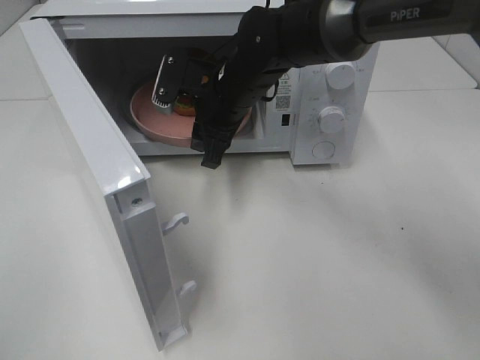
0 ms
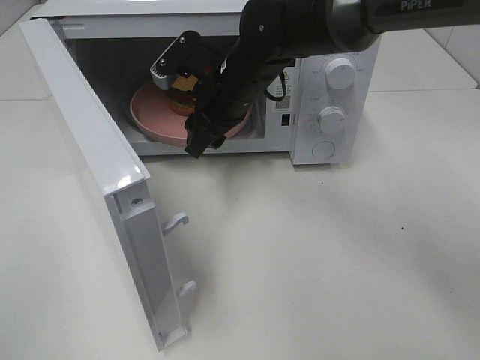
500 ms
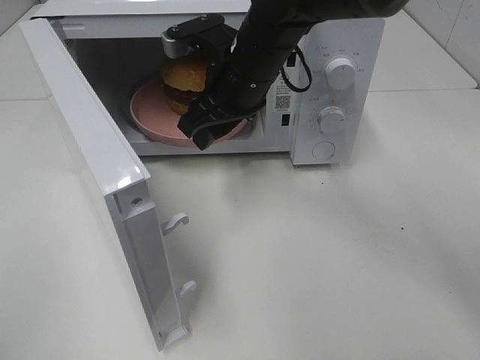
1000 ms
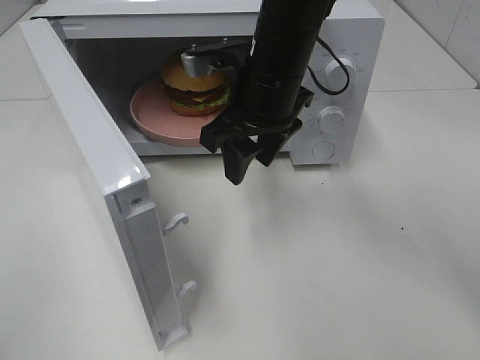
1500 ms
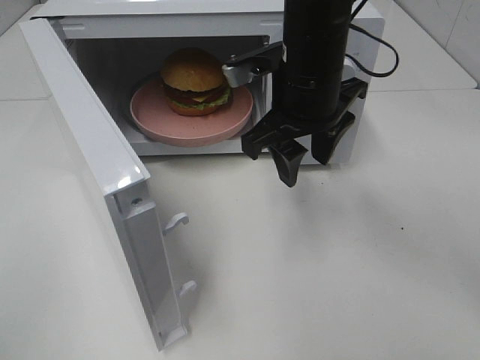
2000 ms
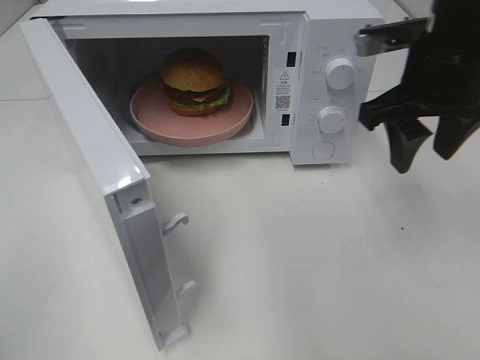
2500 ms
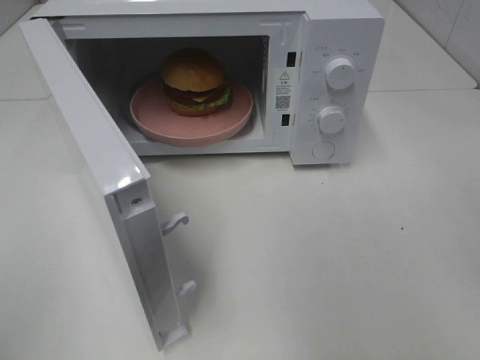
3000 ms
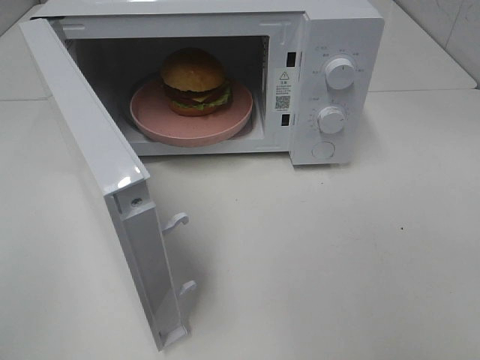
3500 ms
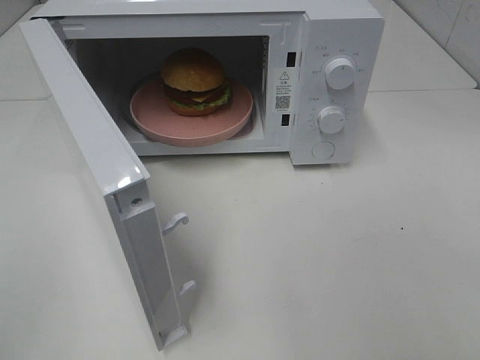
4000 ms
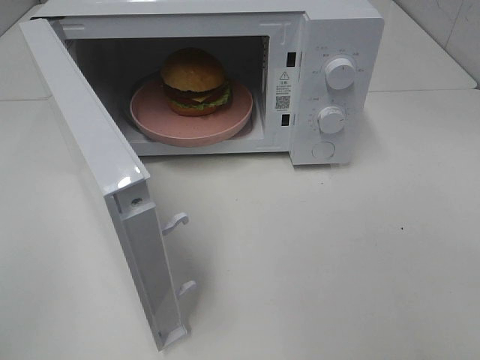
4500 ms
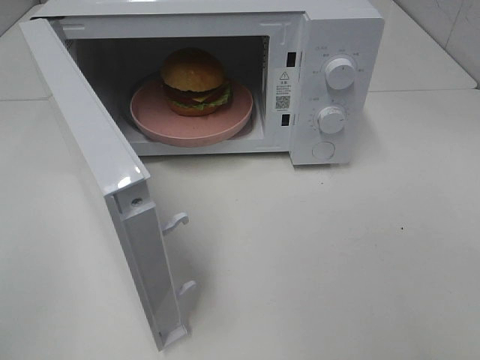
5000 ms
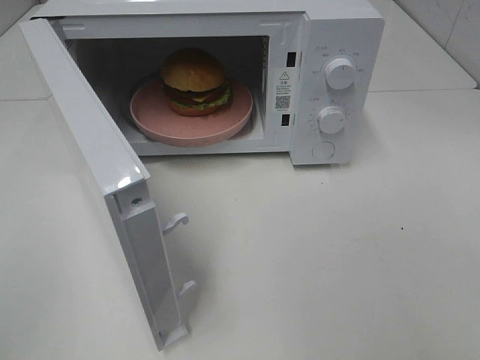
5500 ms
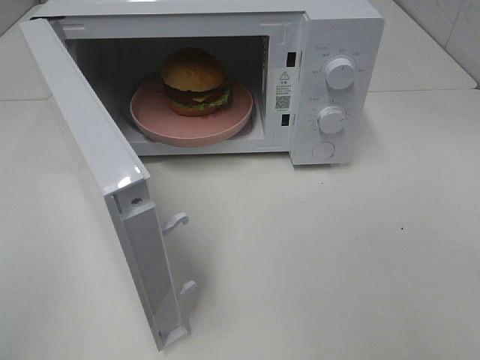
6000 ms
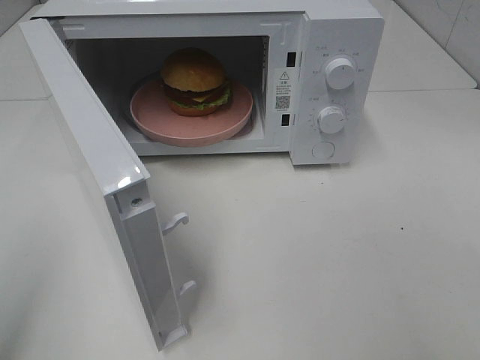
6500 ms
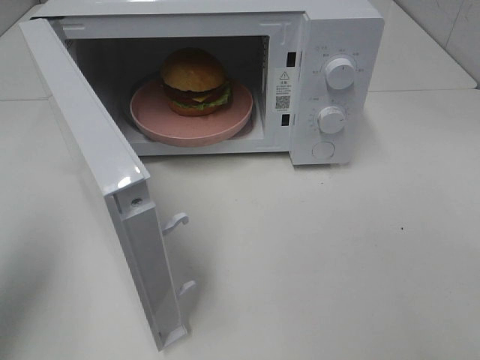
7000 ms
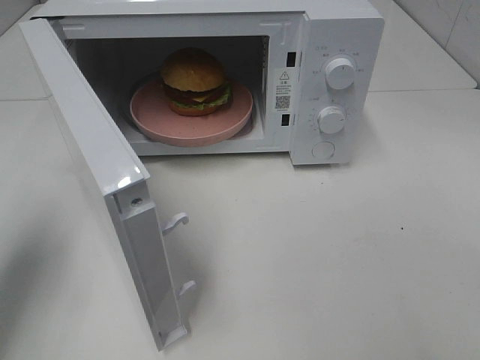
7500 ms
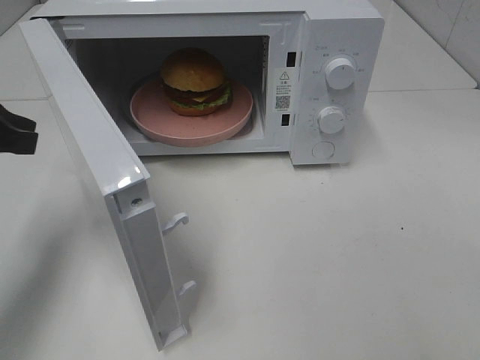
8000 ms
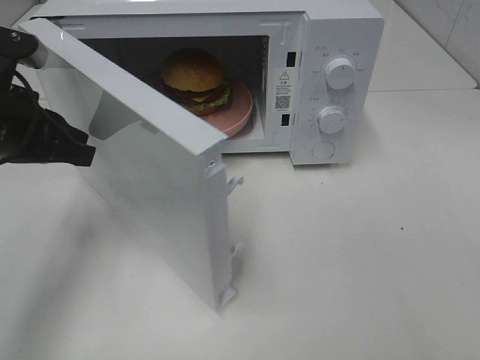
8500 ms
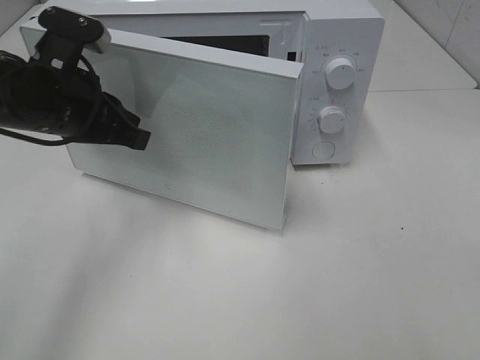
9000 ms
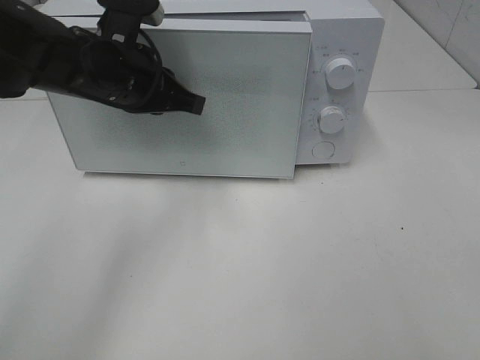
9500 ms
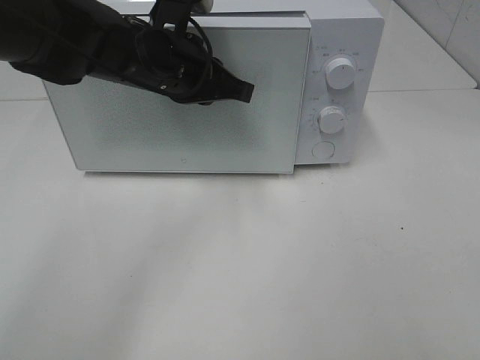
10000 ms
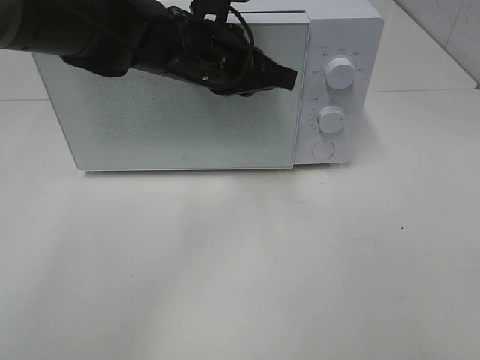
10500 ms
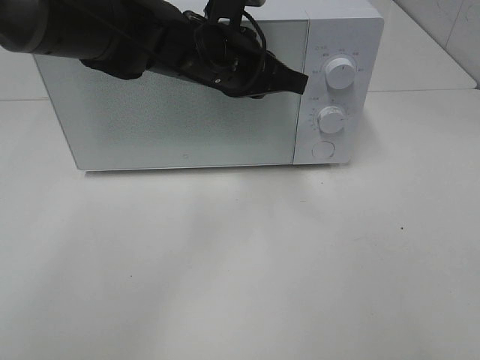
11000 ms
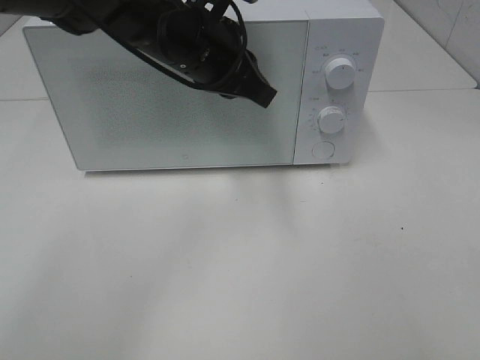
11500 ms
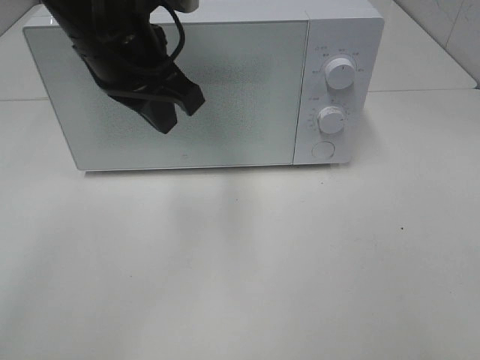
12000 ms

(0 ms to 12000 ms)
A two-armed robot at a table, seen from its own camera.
Task of the whole recording: Heat the burger.
Step, 0 ms - 11000 ms: Left hand: close the microwave door.
0 ms - 2000 ms: The right gripper is displaced to the right, backward and upward by some 10 cm.
2000 ms - 4000 ms: The right gripper heads backward and to the right, covering approximately 40 cm.
6000 ms - 8000 ms: The left gripper shifts roughly 25 cm forward.
8000 ms - 10000 ms: The left gripper shifts roughly 20 cm to the right and forward.
10000 ms - 12000 ms: The left gripper is displaced upward by approximately 5 cm, and goes to the right and returns, about 5 cm each way.

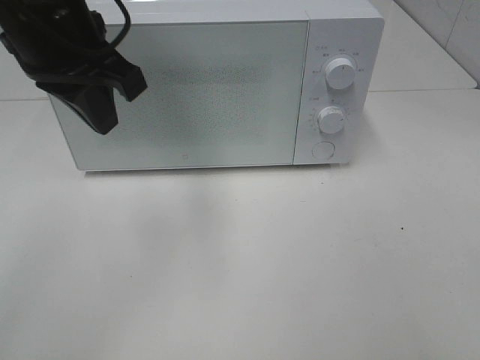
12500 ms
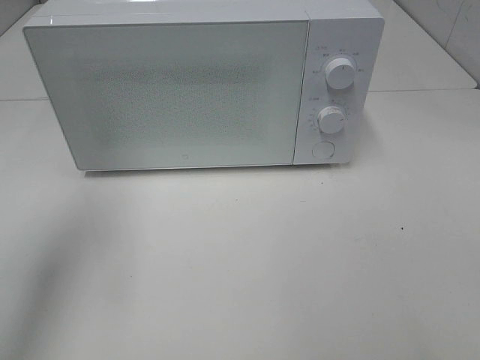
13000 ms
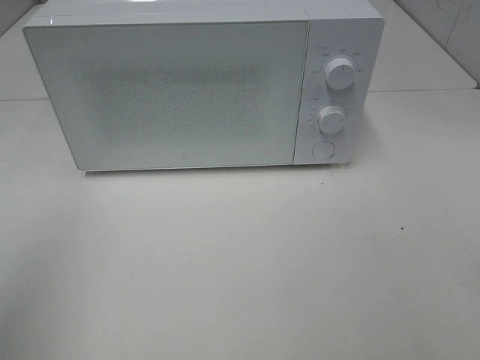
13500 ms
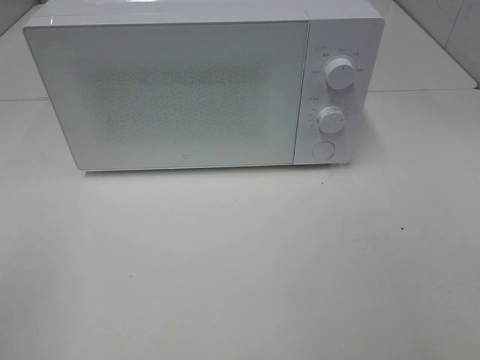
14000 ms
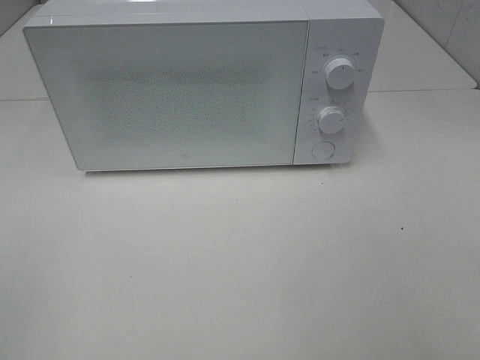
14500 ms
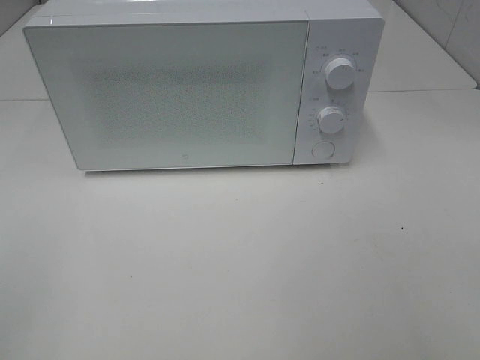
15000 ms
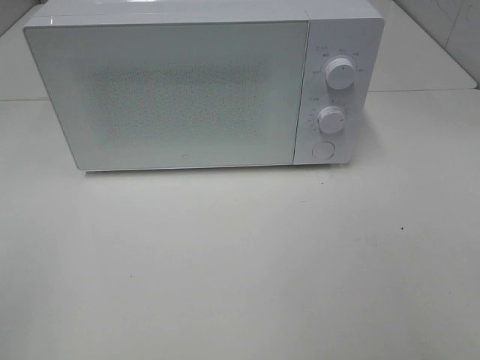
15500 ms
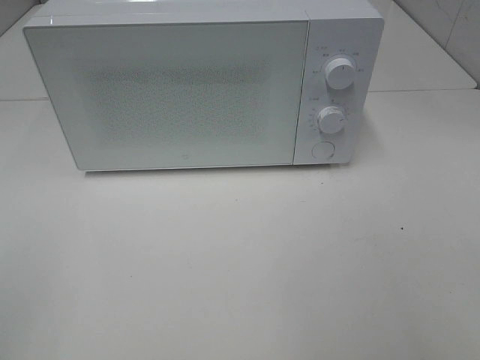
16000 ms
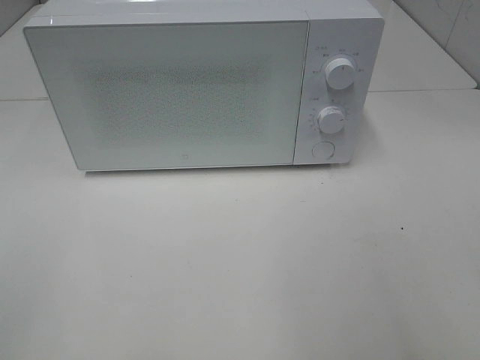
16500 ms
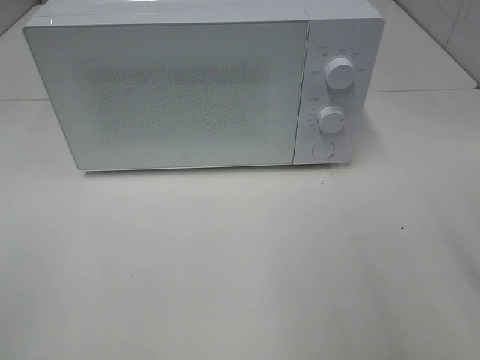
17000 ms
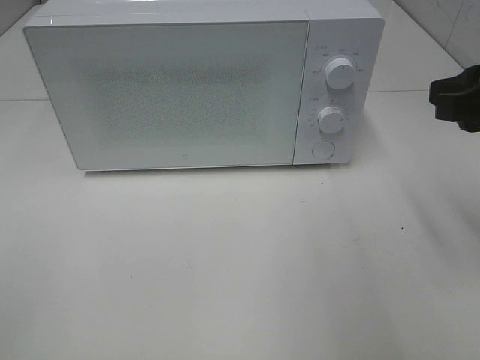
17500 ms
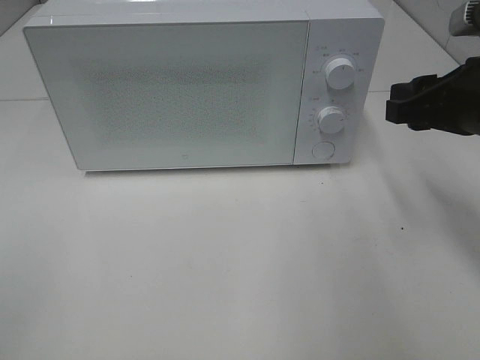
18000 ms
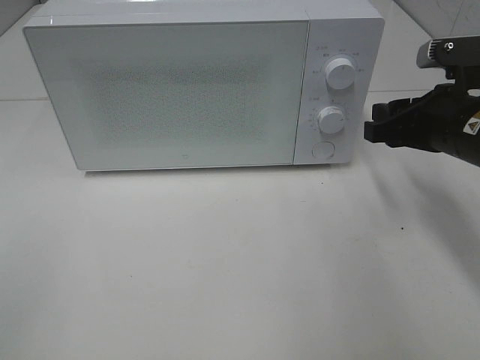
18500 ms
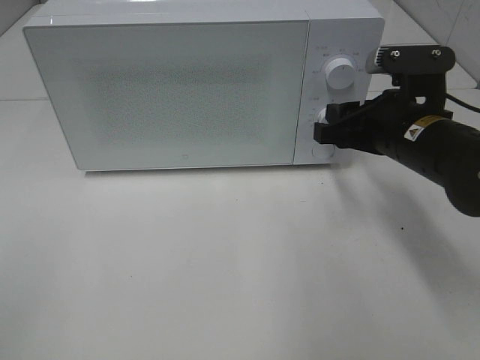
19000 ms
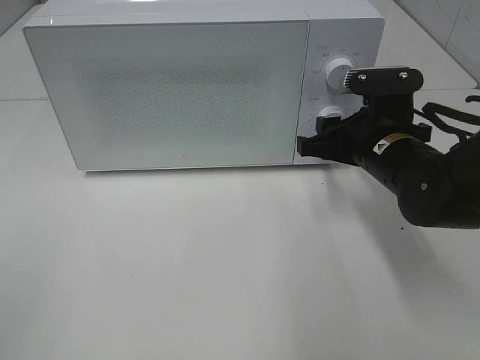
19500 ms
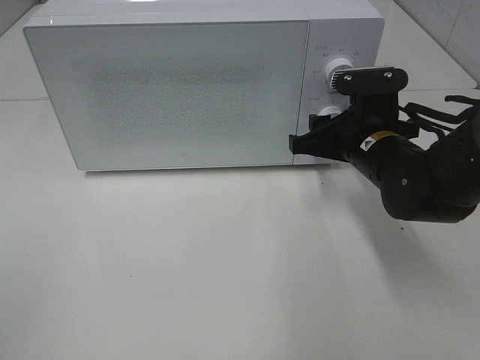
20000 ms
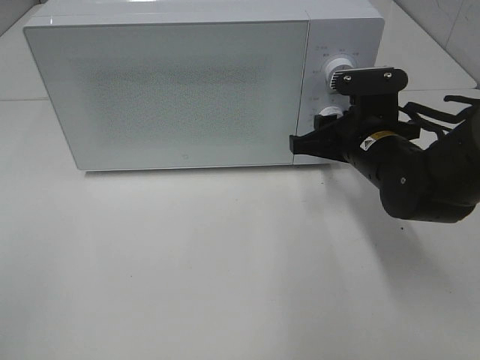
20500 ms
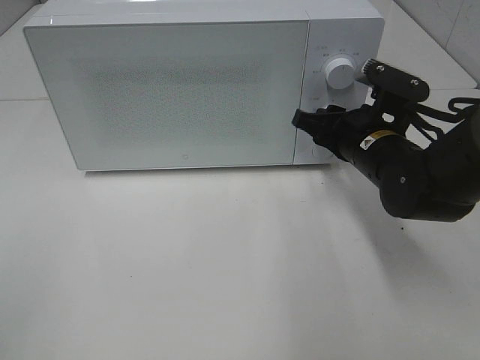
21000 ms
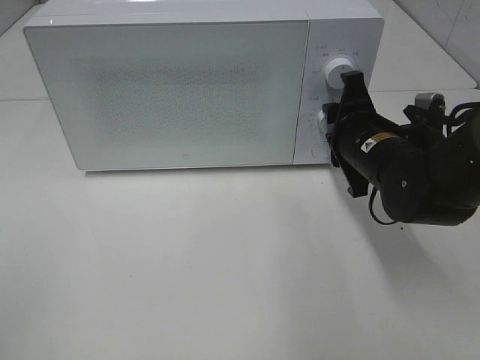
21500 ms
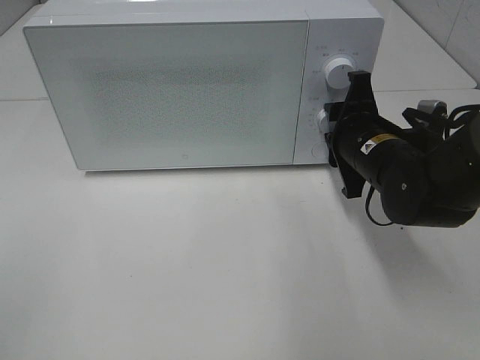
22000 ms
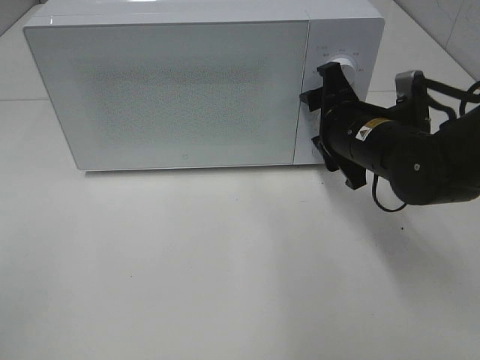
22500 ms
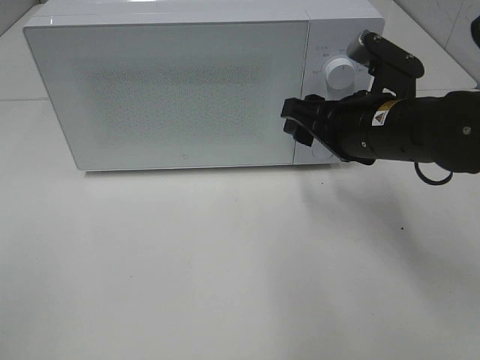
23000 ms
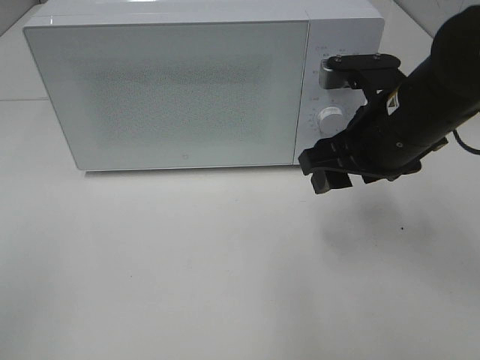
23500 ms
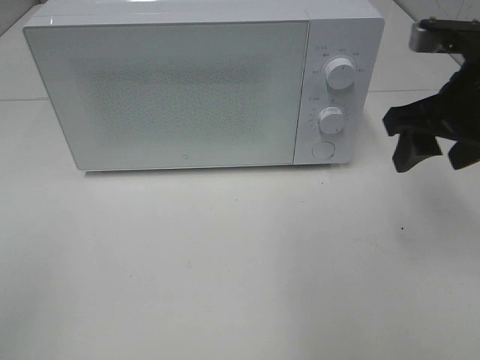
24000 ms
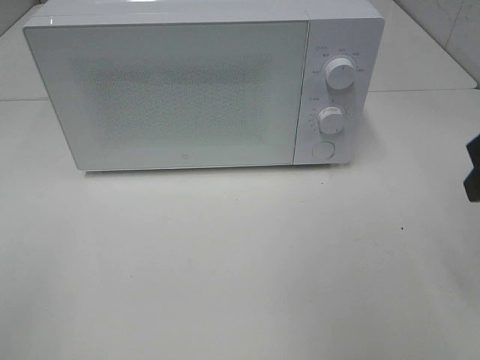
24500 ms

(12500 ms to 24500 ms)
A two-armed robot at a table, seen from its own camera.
Task of the whole recording: Heat the burger.
Step, 12500 ms - 22000 ms: Right hand: twist timer button.
12500 ms - 14500 ms: The left gripper travels backward and to the left by some 35 cm.
16500 ms - 18500 ms: The right gripper shifts approximately 25 cm forward and downward.
18500 ms - 20500 ms: The right gripper shifts roughly 5 cm to the left.
22500 ms - 24500 ms: The right gripper travels upward, backward and to the right by some 20 cm.

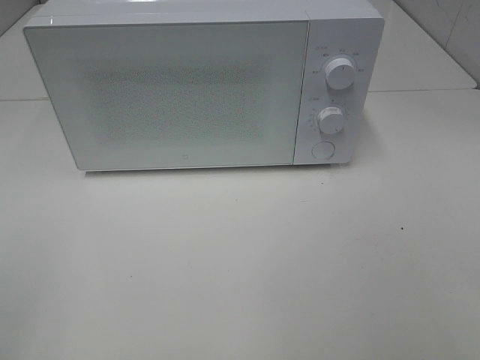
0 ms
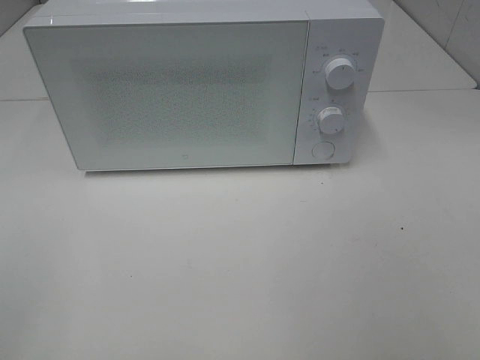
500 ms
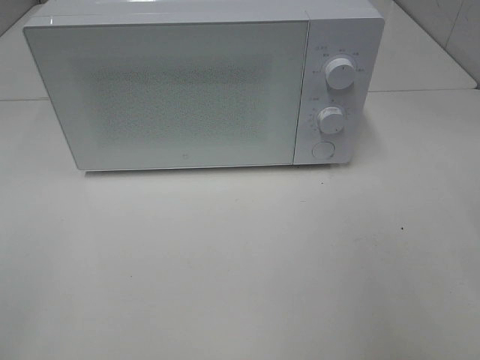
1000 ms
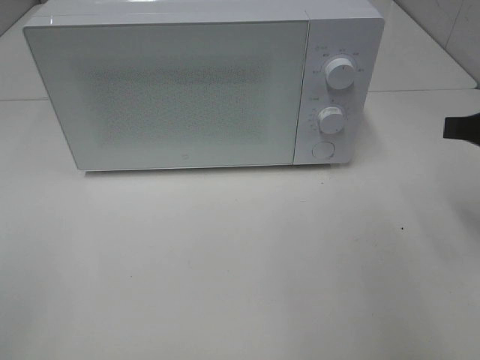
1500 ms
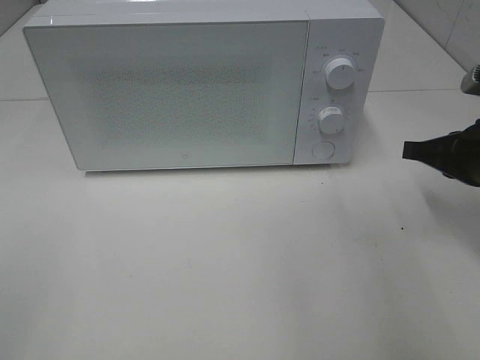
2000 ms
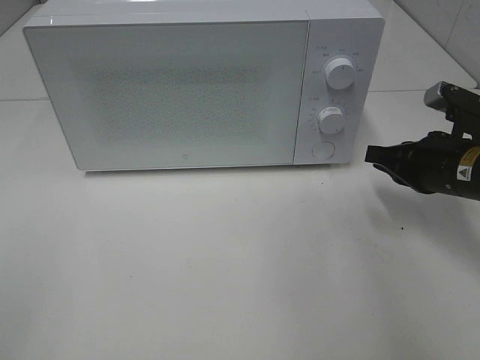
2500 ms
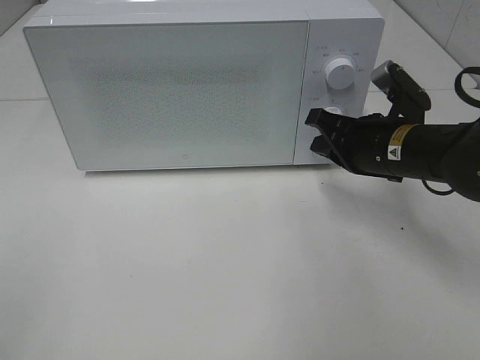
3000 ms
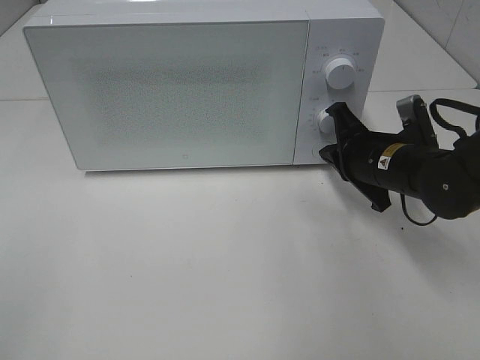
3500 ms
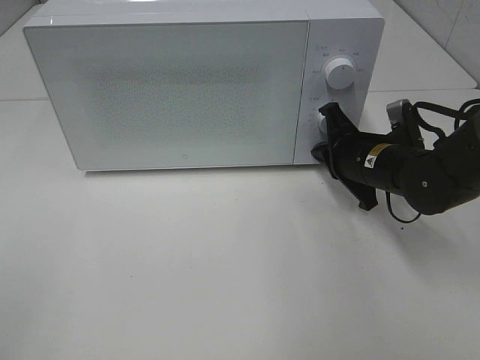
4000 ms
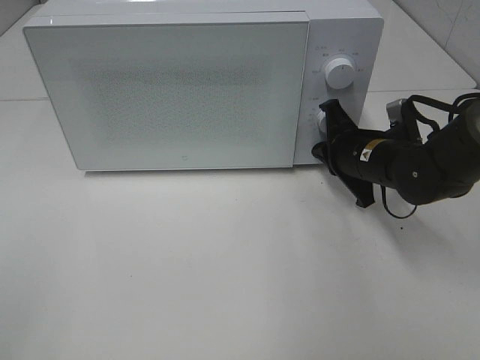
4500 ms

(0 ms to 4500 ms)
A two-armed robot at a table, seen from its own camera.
Task of the whole recording: Heat the burger.
0 ms - 2000 ms: The right gripper moves forward and downward, about 30 cm, and closes.
2000 ms - 4500 ms: The right gripper moves to the left, forward and downward, about 15 cm.
